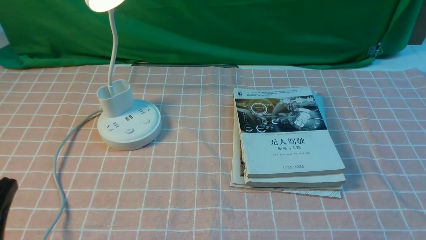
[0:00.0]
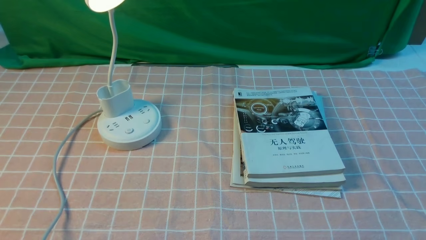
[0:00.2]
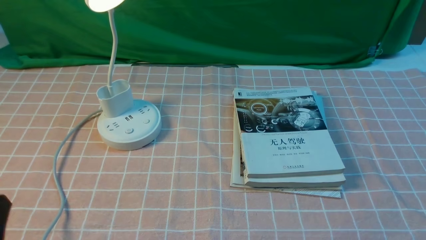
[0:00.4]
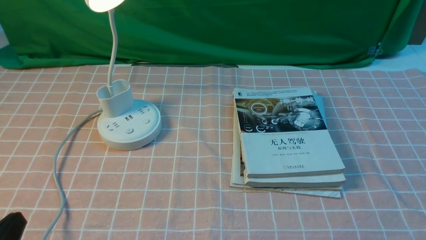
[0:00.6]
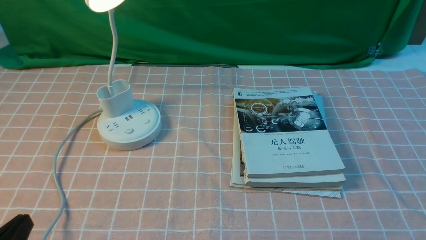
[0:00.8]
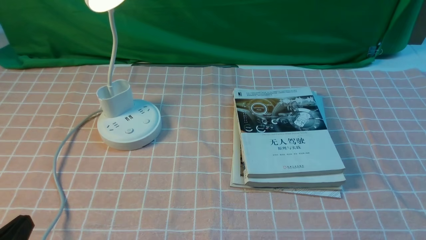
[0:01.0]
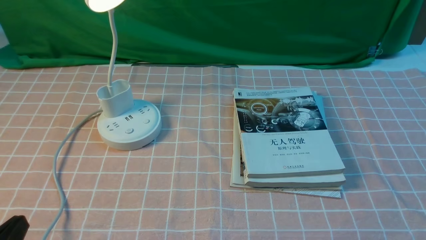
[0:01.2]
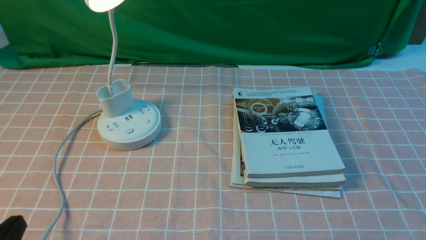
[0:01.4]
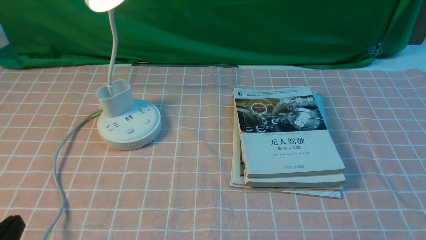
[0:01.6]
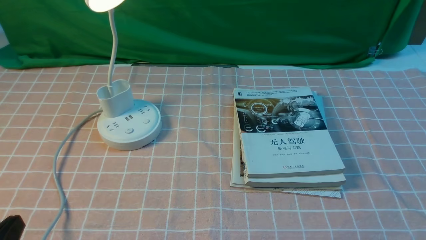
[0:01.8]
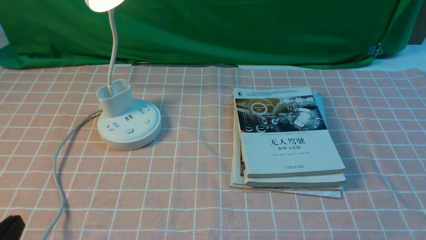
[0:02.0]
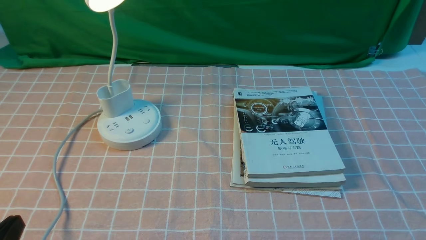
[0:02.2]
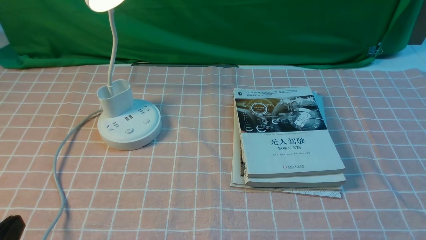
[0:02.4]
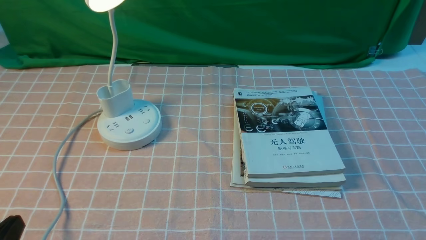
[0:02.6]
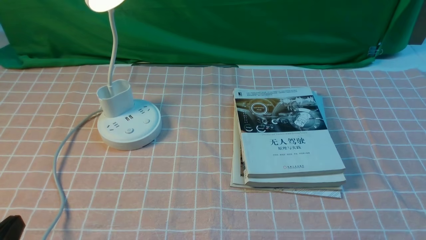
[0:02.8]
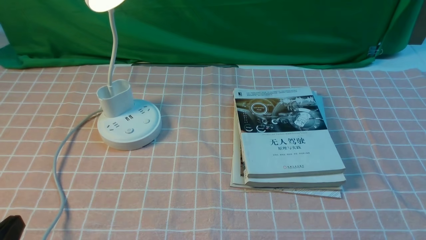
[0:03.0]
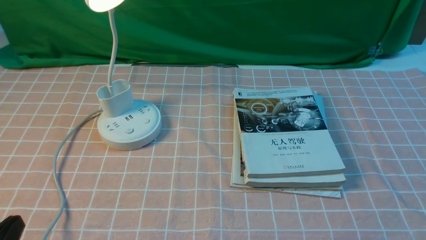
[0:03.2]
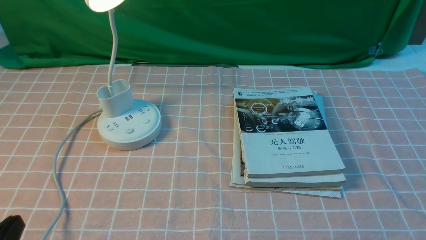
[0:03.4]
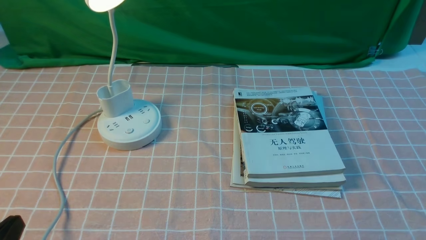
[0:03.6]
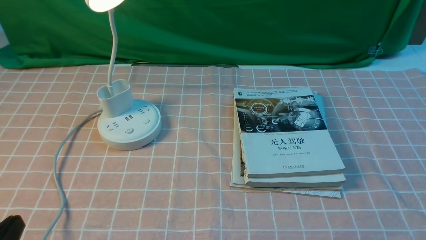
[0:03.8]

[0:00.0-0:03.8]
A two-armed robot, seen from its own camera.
0:01.2 to 0:03.8: The two grippers keep their place.
